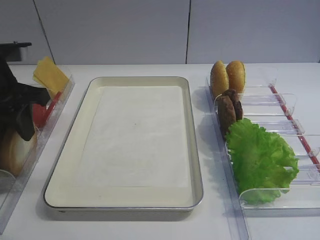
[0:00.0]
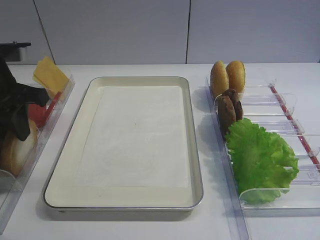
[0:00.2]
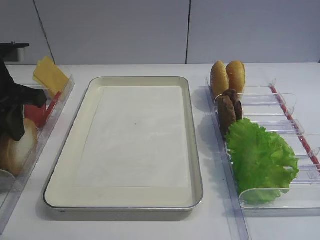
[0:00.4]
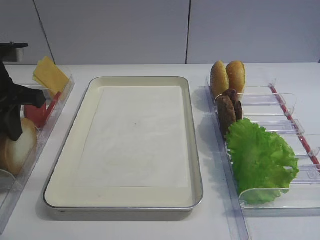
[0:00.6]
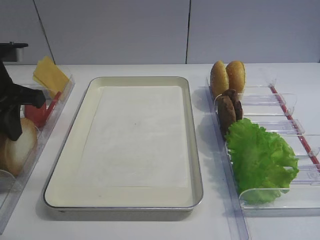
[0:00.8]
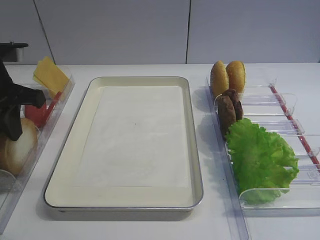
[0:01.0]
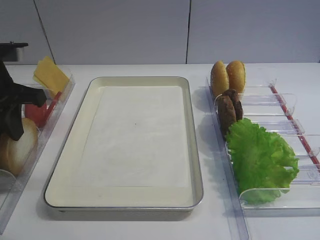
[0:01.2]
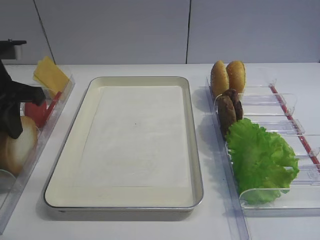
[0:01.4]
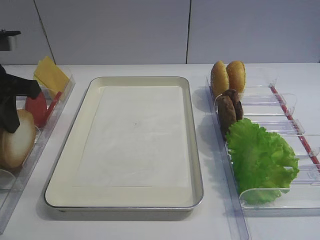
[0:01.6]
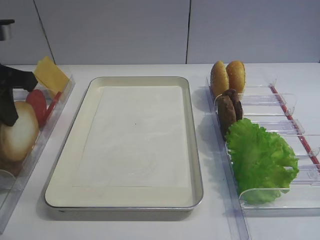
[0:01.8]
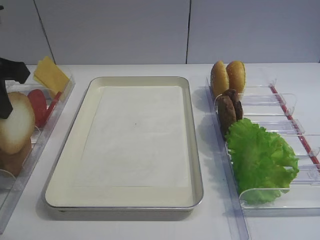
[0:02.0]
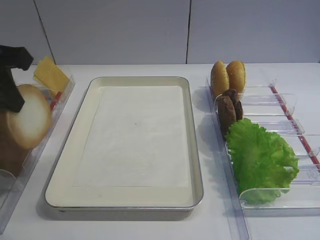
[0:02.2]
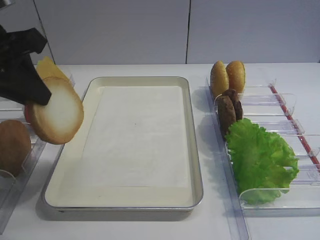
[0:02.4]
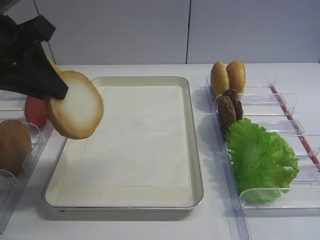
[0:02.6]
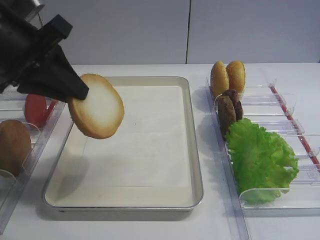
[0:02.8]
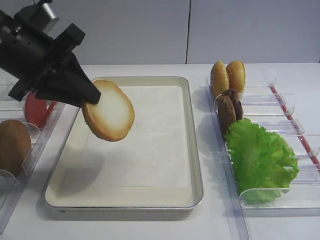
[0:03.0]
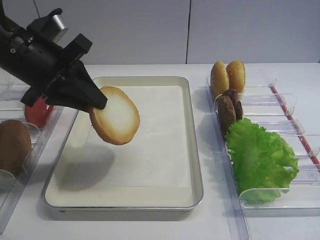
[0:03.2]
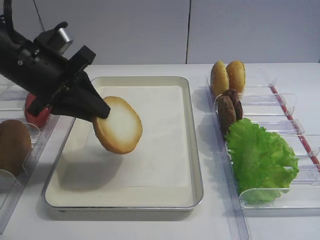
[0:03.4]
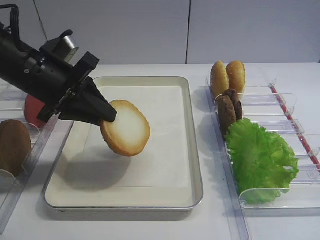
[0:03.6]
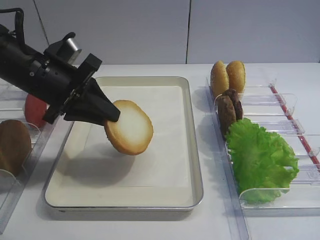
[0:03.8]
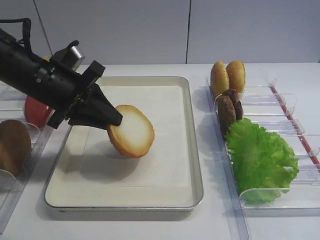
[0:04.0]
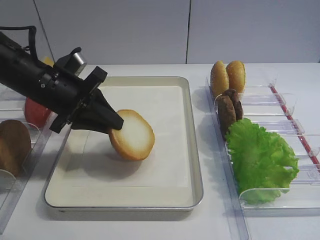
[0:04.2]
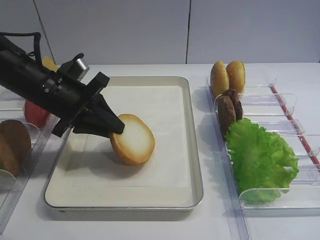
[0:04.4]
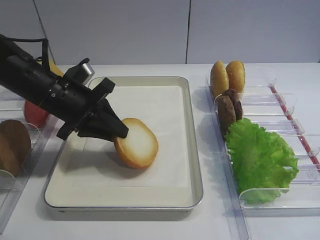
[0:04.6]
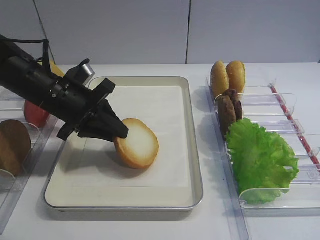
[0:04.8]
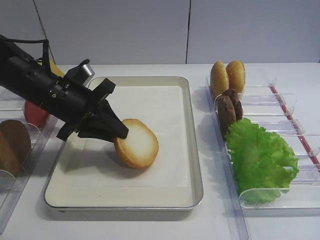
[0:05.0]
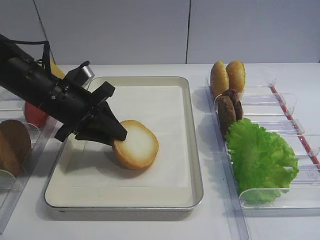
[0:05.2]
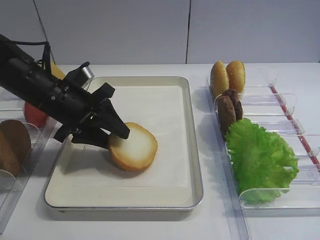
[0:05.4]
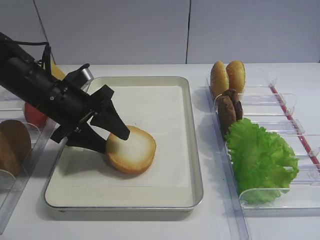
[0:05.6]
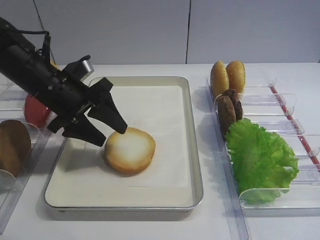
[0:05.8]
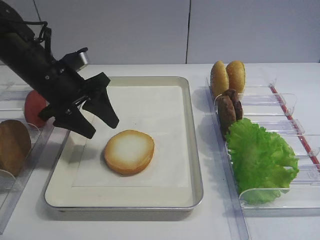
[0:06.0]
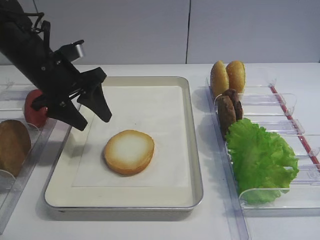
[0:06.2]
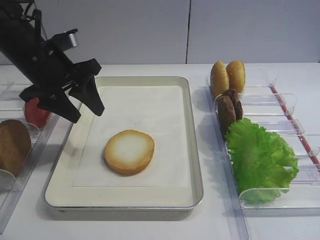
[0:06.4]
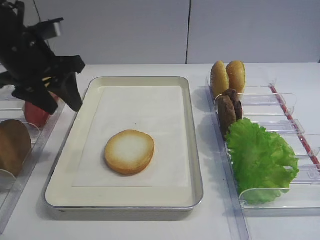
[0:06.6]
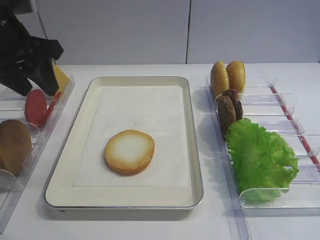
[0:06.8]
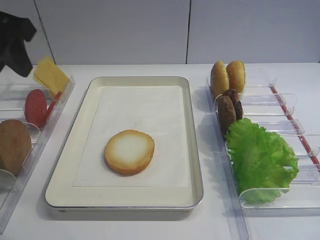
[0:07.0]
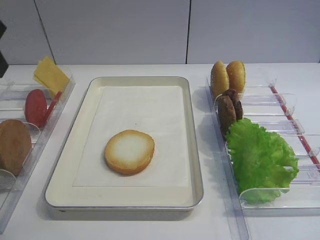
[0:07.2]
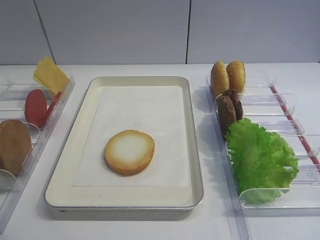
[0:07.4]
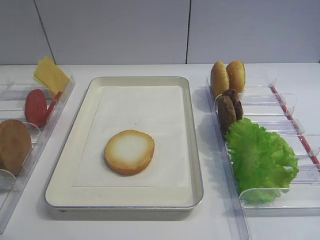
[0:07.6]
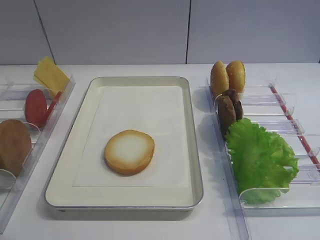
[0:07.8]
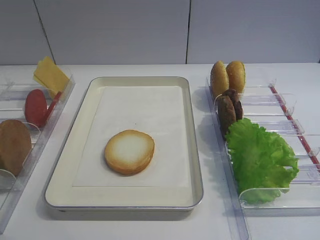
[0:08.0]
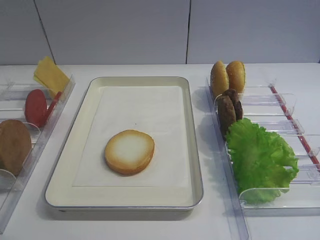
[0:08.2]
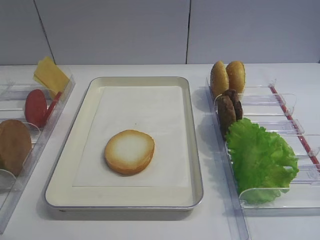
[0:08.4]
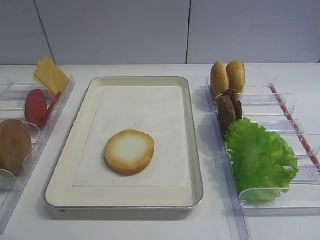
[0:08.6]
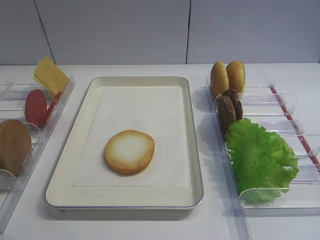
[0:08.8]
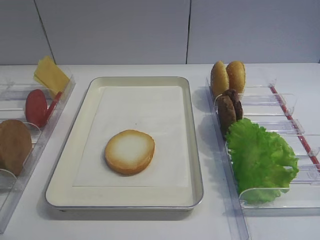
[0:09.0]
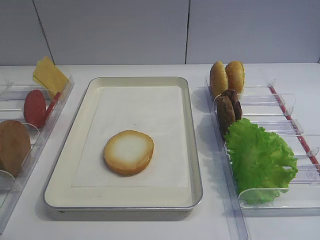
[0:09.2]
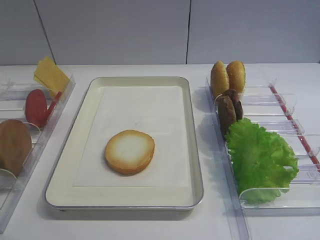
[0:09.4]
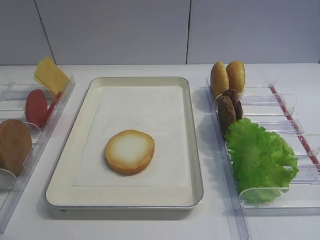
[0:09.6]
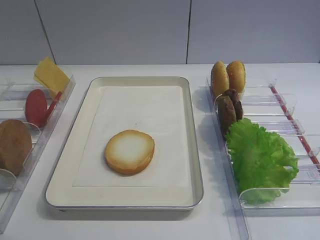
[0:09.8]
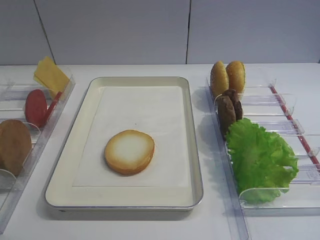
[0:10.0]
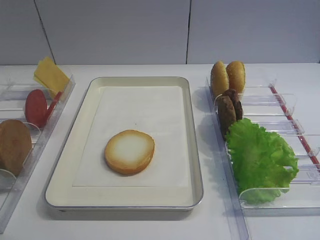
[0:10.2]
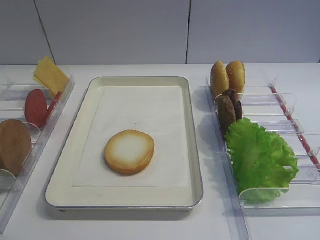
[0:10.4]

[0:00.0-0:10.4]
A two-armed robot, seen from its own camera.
Step, 0:02.0 to 0:06.2: Place the bread slice on the tray with the left gripper.
0:00.0 to 0:01.4: The left gripper closes.
0:01.4 to 0:03.0: The left gripper is displaced to the right by some 5 cm.
0:03.0 to 0:04.4: The left gripper moves downward, some 10 cm.
0:04.4 to 0:06.0: The left gripper opens.
0:06.0 to 0:07.4: The left gripper travels upward, backward and to the left by roughly 25 cm.
0:09.0 to 0:10.4: Both grippers stay about where they are.

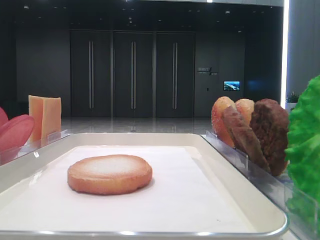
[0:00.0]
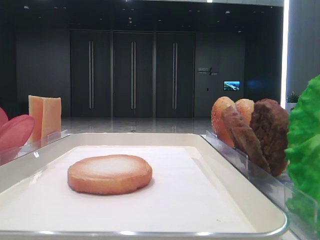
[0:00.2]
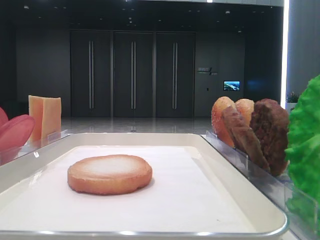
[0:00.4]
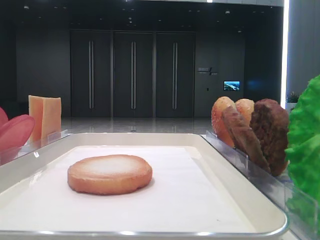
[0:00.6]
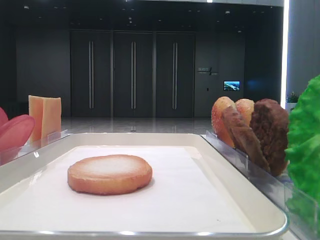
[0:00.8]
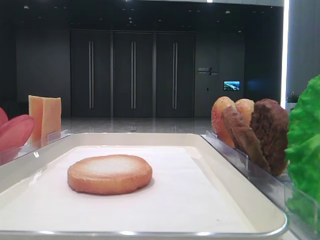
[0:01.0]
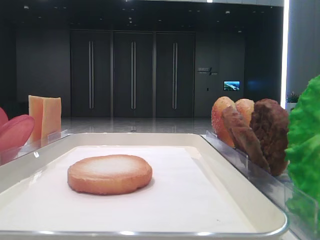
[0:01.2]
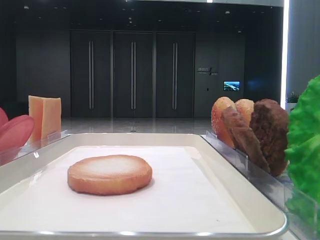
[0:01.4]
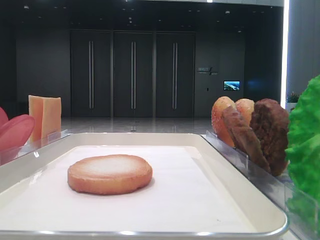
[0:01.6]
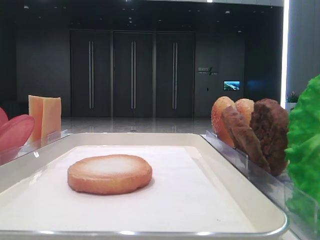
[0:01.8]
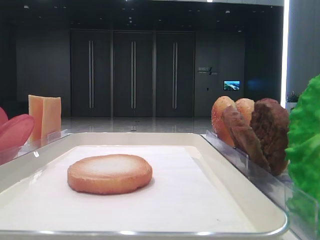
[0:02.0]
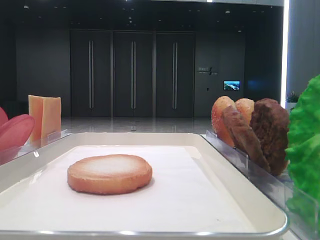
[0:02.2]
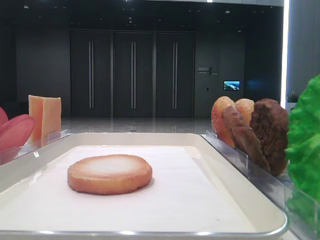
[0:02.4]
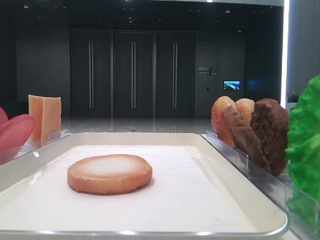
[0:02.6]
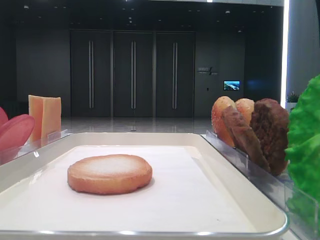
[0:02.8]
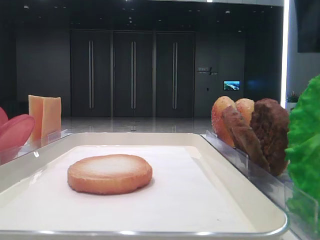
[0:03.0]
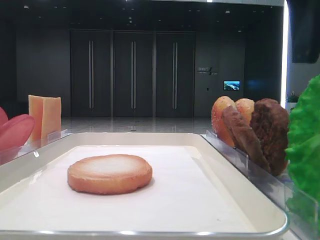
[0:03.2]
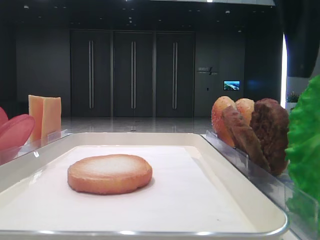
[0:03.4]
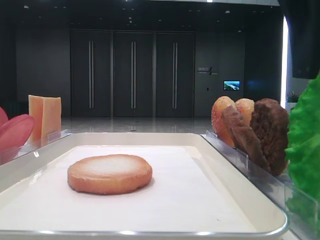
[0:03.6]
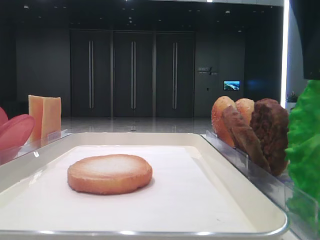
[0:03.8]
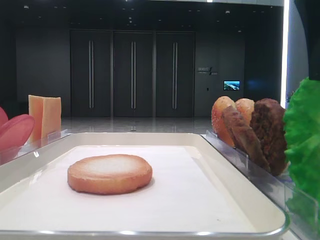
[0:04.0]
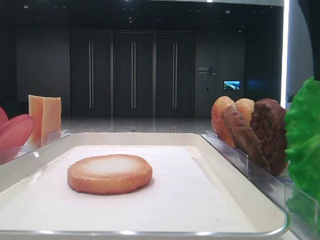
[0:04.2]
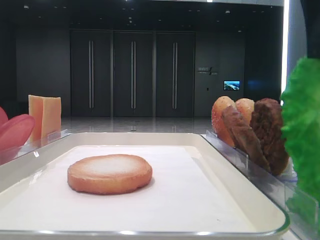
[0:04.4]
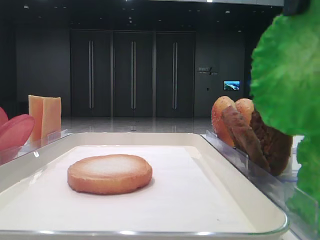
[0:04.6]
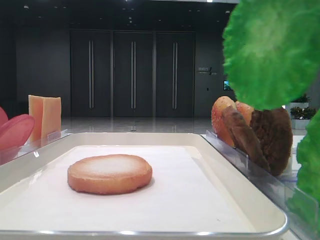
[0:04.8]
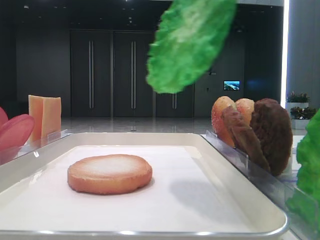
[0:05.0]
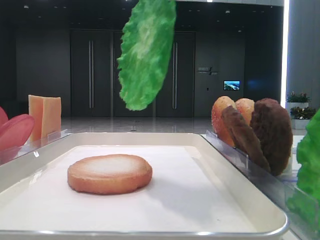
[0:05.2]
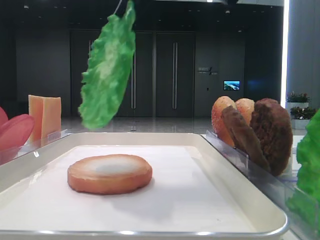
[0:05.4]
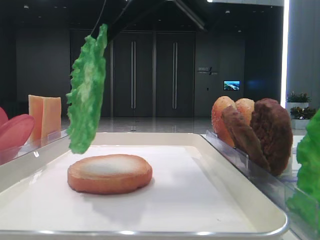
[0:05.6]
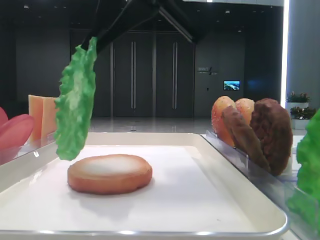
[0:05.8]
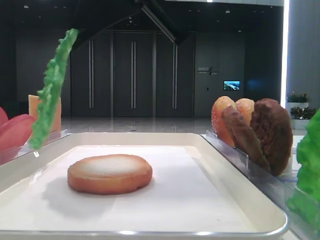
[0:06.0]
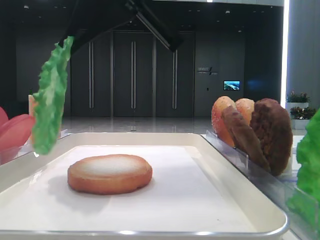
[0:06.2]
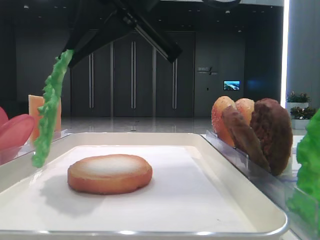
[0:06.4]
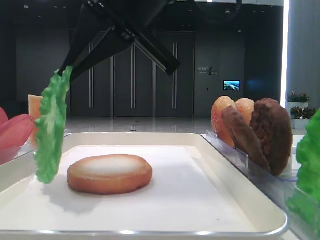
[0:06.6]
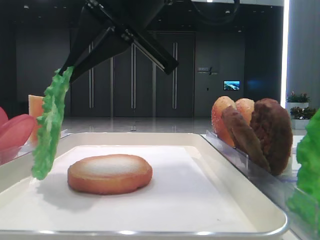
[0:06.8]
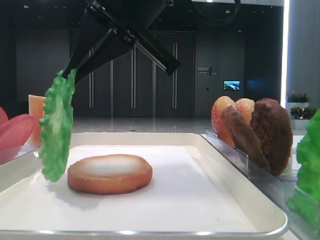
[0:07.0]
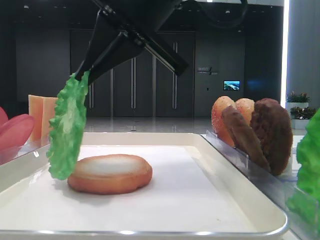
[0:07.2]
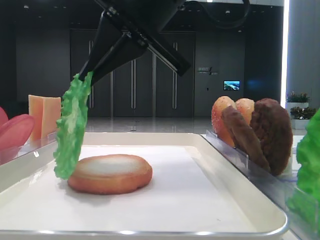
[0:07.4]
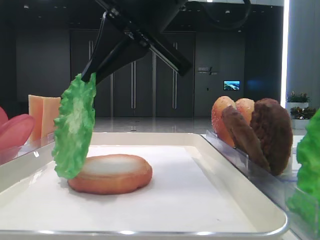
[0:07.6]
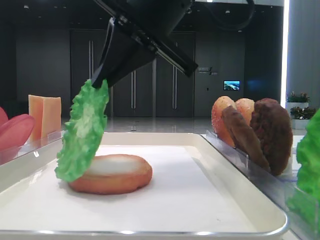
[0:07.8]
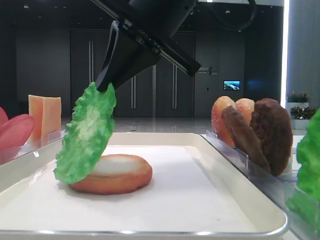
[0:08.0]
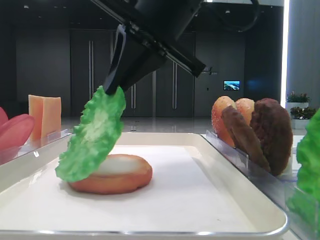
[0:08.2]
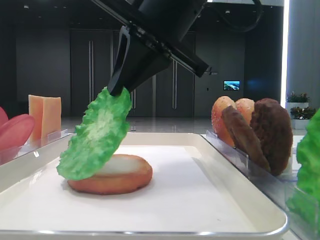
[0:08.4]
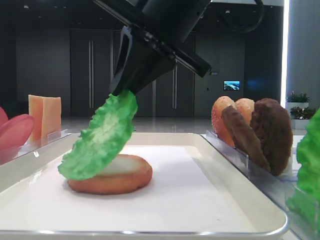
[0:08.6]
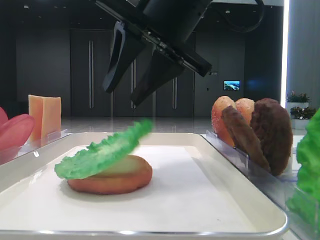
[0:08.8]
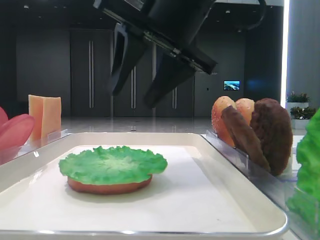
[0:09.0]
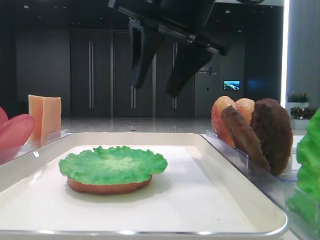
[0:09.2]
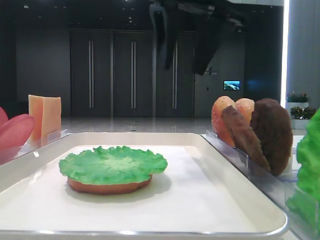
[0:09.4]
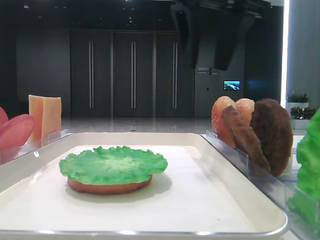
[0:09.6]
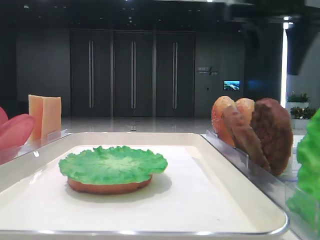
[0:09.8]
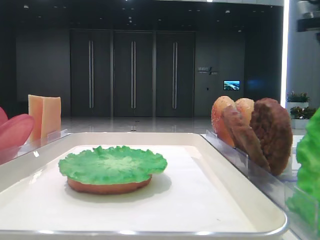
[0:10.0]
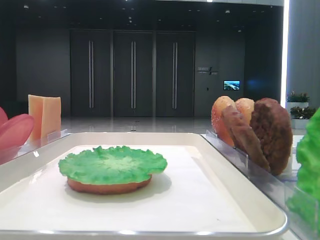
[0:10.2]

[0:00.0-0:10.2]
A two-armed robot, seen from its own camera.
Step, 0:00.0 to 0:04.2: Grab the lettuce leaf with the right hand.
Step, 0:04.4 to 0:08.8: Place the lettuce leaf on the bottom bread with the right hand.
0:01.4 to 0:03.0: The right gripper is displaced forward and to the left by approximately 20 cm.
0:03.0 to 0:04.4: The right gripper closes its fingers.
0:04.4 to 0:05.8: The right gripper heads to the left, covering about 15 cm.
0:05.8 to 0:07.2: The grippers move only a little.
0:07.2 to 0:08.8: The right gripper opens its fingers.
0:08.8 to 0:10.2: The right gripper goes roughly 35 cm to the right.

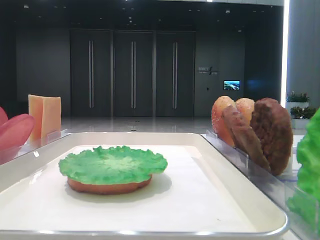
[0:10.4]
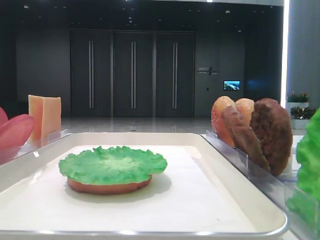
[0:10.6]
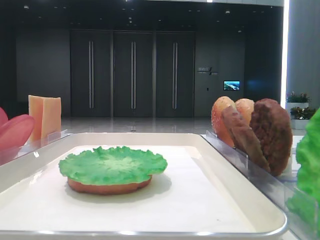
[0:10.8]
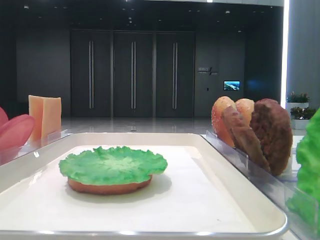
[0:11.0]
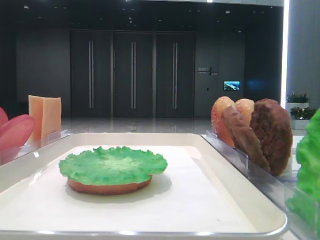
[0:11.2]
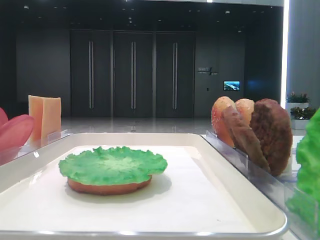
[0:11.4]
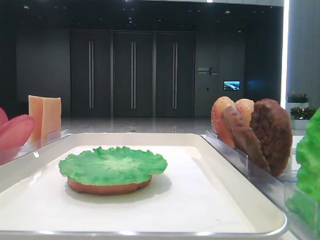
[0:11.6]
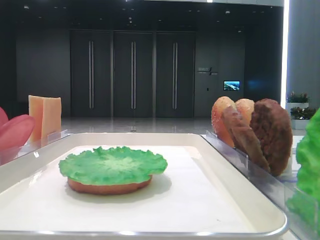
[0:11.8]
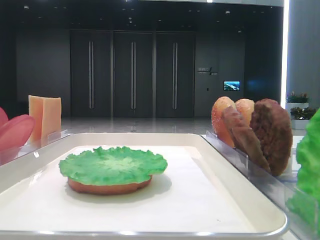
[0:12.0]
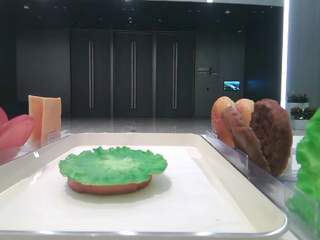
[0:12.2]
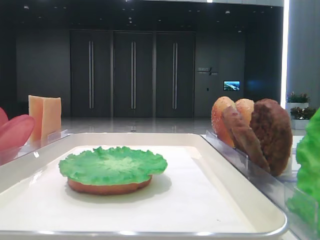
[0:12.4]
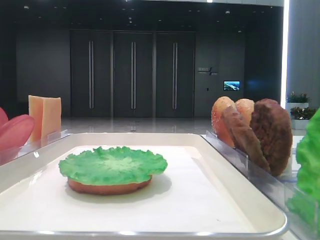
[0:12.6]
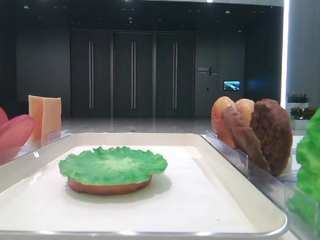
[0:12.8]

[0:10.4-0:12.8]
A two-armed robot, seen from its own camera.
0:10.4 to 0:11.6: The right gripper is displaced backward by about 30 cm.
0:11.6 to 0:12.8: Both grippers stay about where they are.
